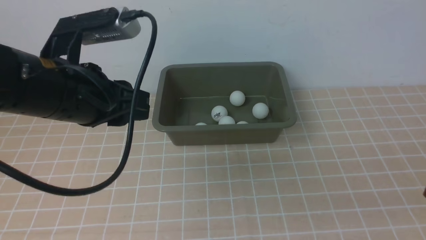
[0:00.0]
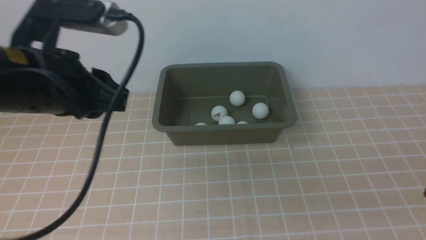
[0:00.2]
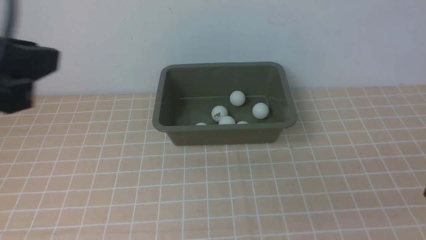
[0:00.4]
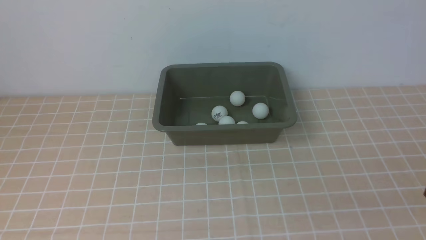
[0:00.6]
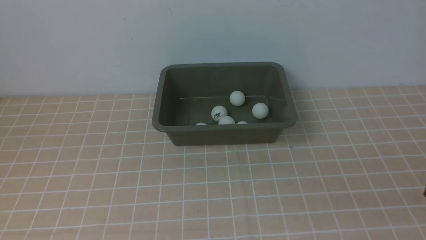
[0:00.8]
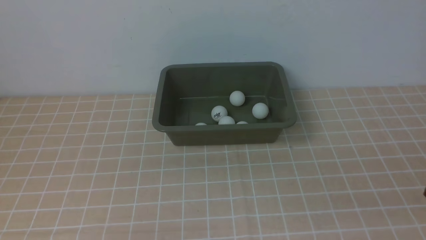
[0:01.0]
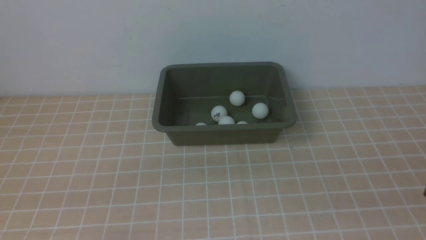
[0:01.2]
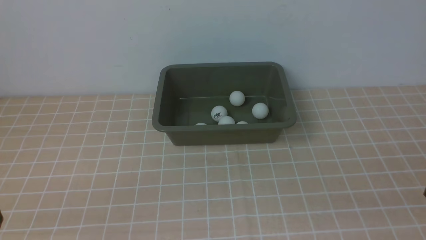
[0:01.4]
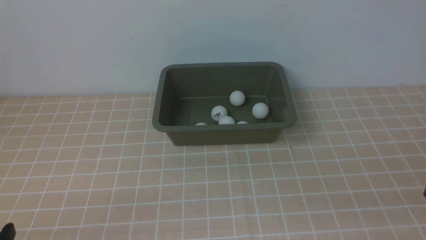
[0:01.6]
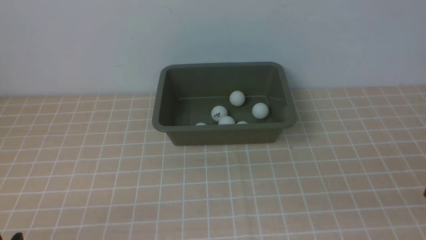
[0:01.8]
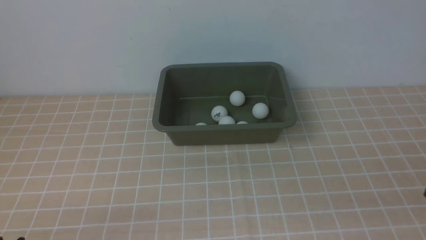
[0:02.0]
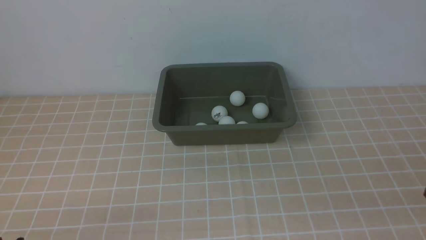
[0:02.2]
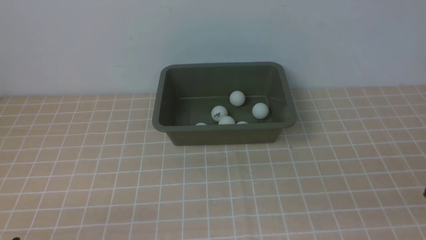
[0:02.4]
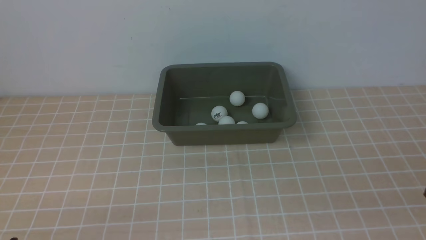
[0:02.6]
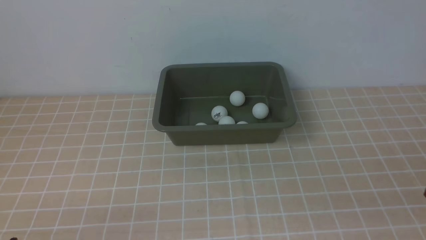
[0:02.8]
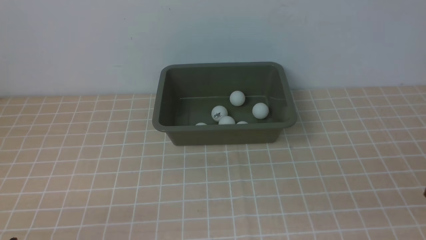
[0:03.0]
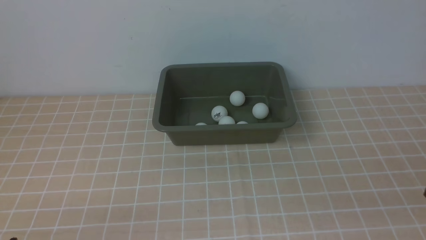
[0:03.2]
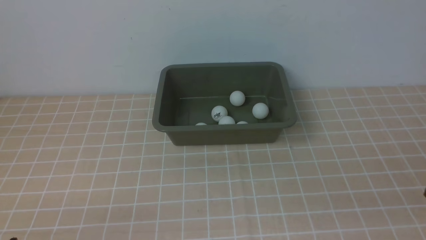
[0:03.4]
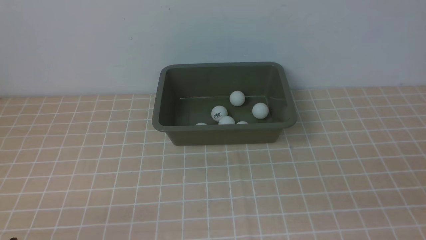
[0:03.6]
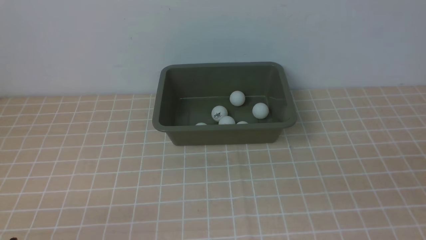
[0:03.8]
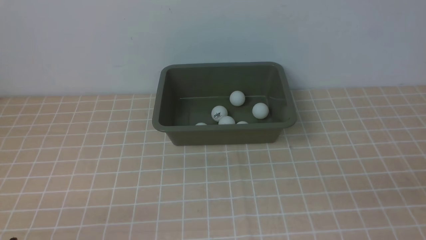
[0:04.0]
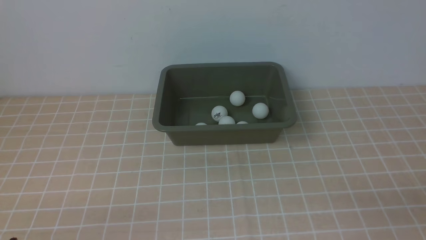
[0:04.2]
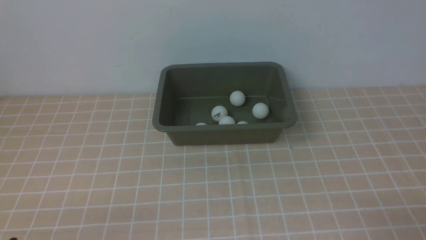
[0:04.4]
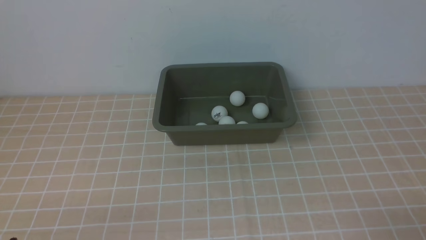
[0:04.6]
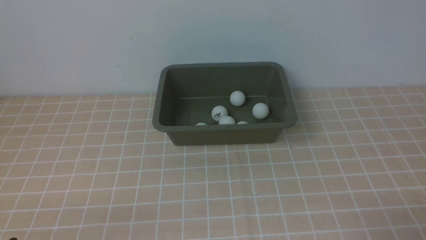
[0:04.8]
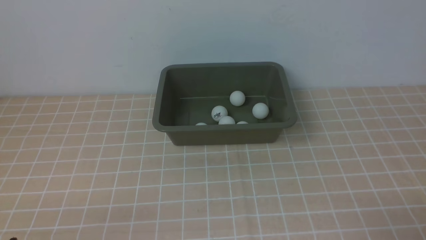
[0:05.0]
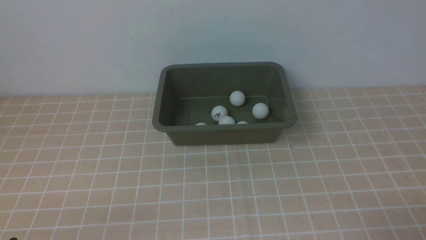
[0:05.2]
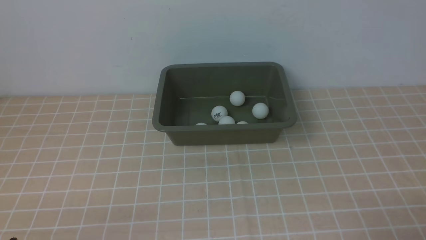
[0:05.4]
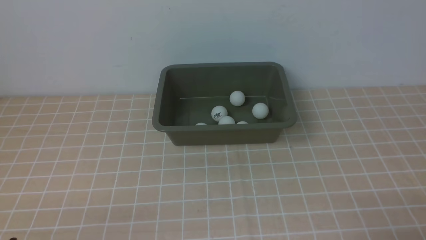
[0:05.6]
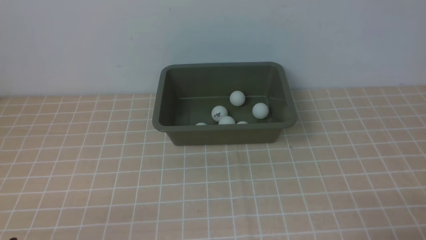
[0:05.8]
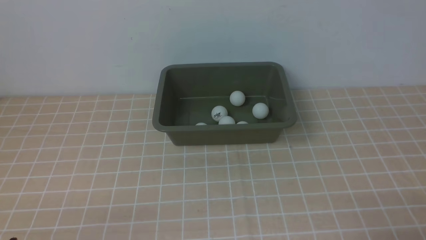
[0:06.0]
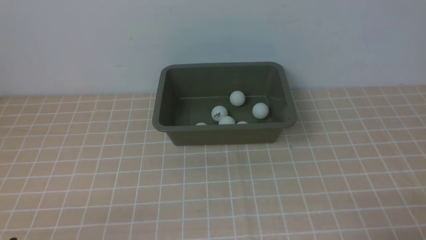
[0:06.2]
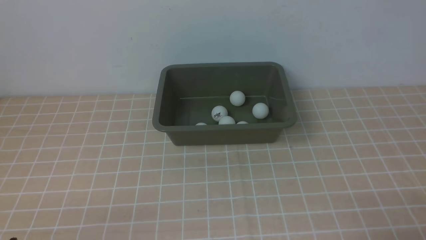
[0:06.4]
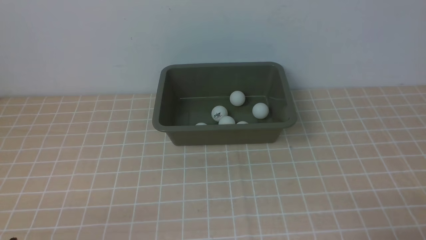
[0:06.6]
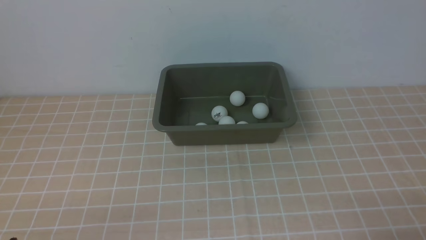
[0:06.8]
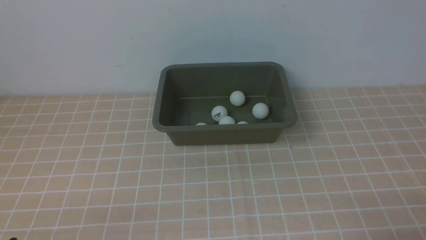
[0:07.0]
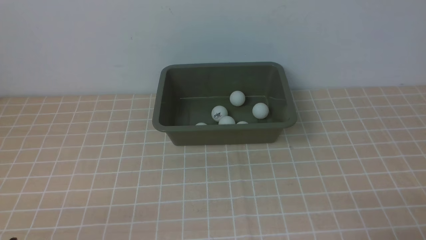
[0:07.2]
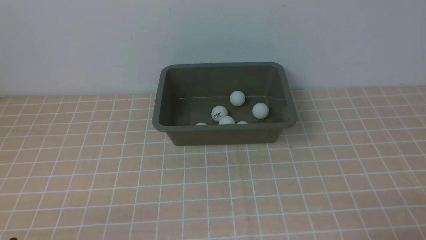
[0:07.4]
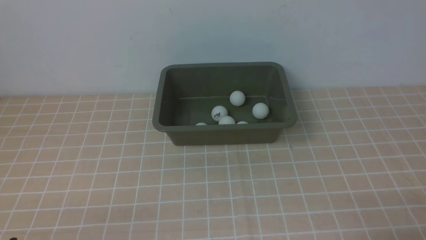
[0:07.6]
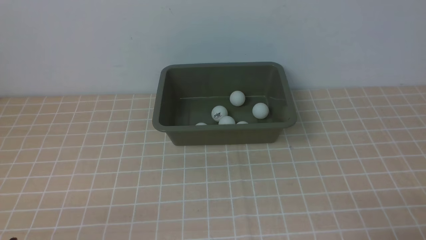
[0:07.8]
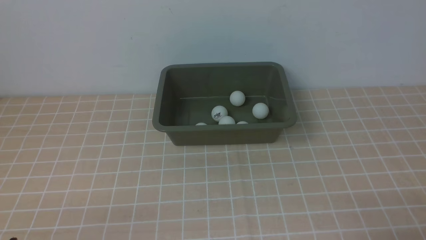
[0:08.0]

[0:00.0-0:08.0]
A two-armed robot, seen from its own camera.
0:00.0 to 0:01.6: The left gripper shifts some 25 cm backward, downward and to the left.
0:06.4 to 0:08.0: Neither gripper changes place.
